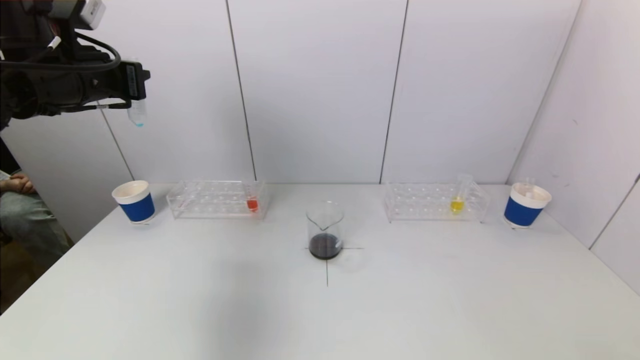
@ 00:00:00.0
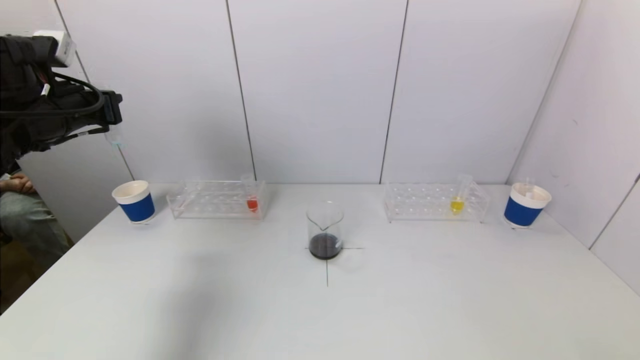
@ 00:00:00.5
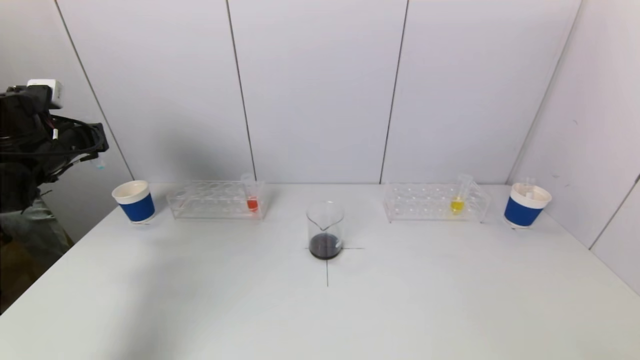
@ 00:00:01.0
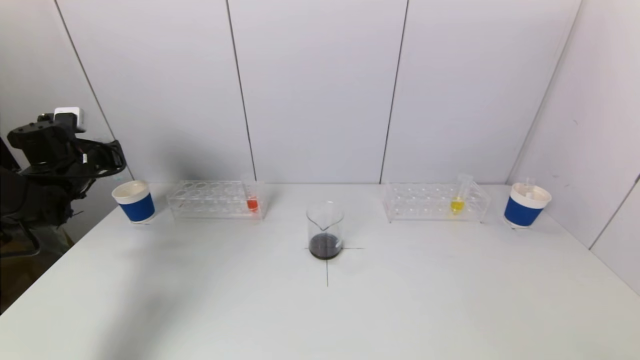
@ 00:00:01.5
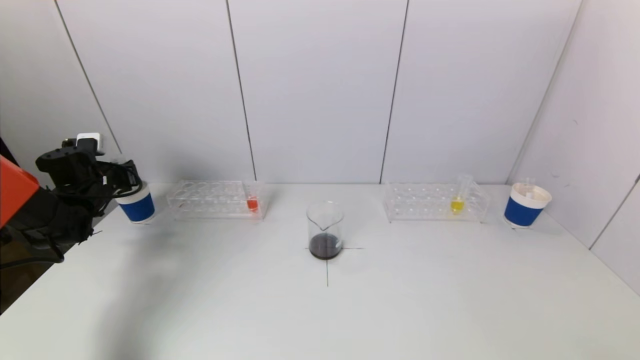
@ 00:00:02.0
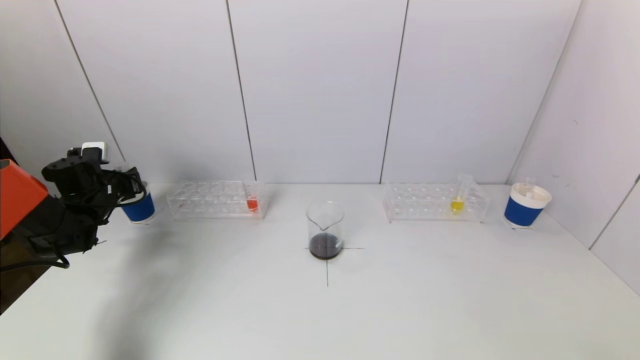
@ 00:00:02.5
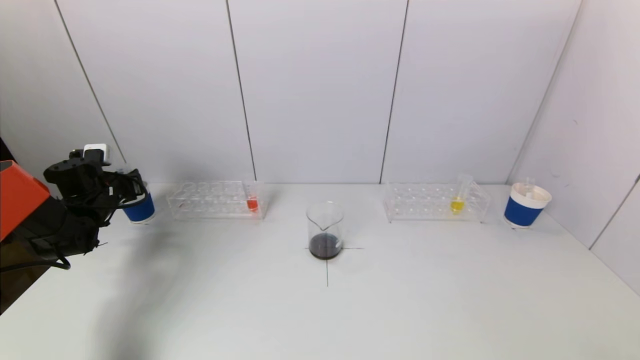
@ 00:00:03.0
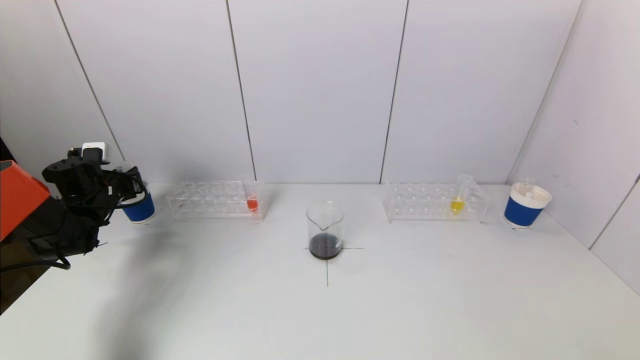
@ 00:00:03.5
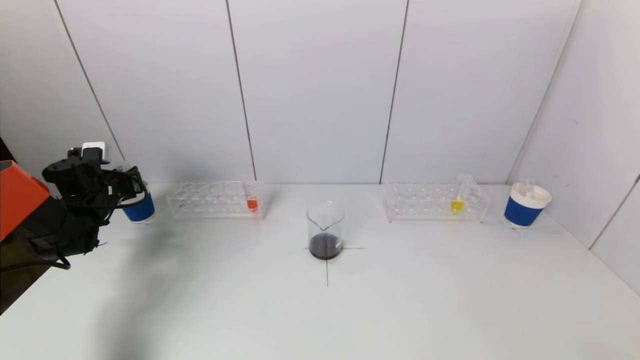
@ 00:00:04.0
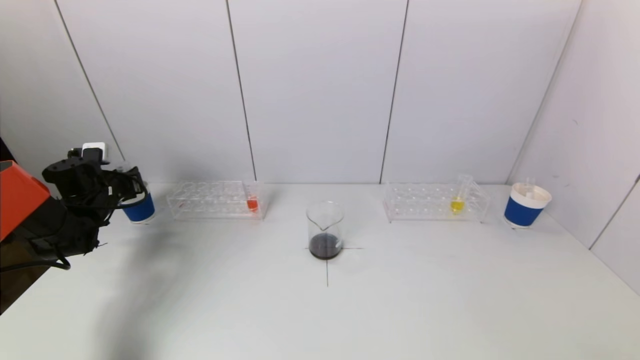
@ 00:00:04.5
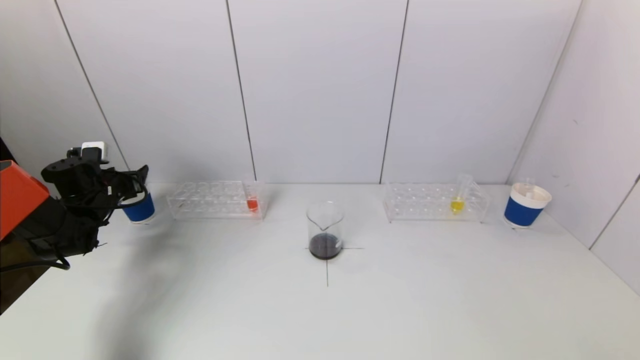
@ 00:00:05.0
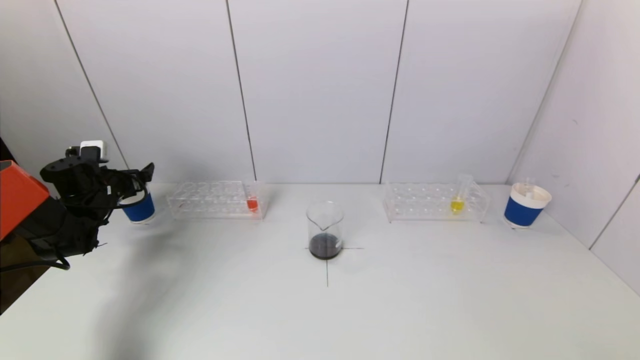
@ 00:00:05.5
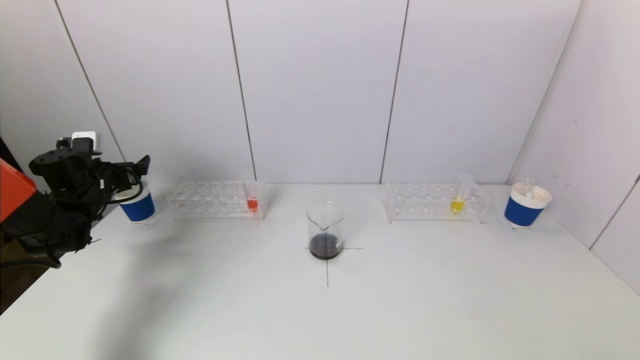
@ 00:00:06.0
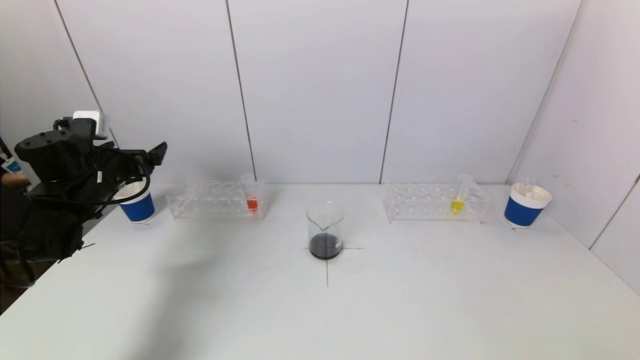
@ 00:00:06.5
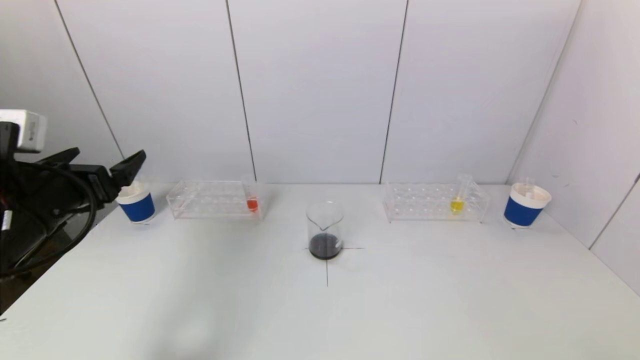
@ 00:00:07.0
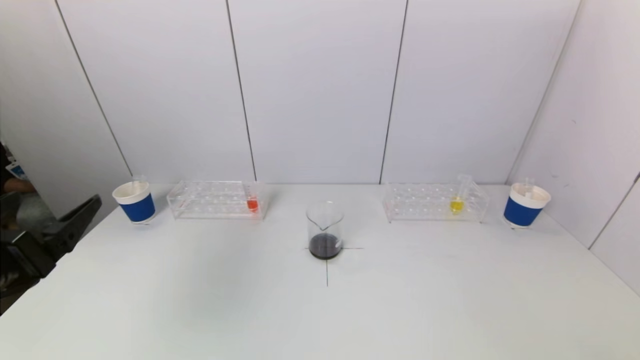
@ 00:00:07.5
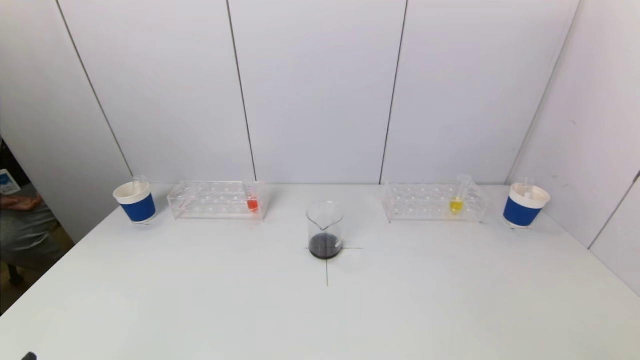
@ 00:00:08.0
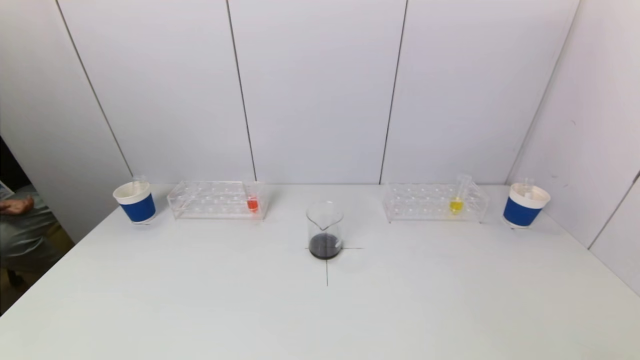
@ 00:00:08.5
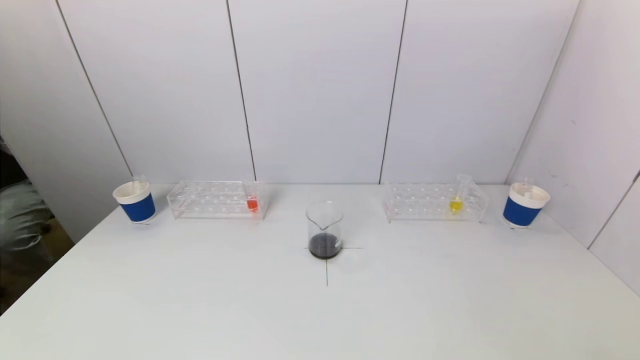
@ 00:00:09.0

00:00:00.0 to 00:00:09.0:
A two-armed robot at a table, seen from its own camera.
Task of the whole recording: pick up a test tube with pigment on left test tube rack and a test tube with pigment on right test tube rack by grippers and pour them into the beaker.
Step, 00:00:00.0 to 00:00:05.0: Place the test tube into the paper cup with the left gripper.
00:00:00.0 to 00:00:02.0: The left gripper travels downward, to the left and forward by some 30 cm.
00:00:02.0 to 00:00:04.5: The grippers make only small movements.
00:00:04.5 to 00:00:07.0: The left gripper moves backward, upward and to the right, roughly 25 cm, and opens its fingers.
00:00:07.0 to 00:00:09.0: The left gripper moves backward and downward, roughly 30 cm.
